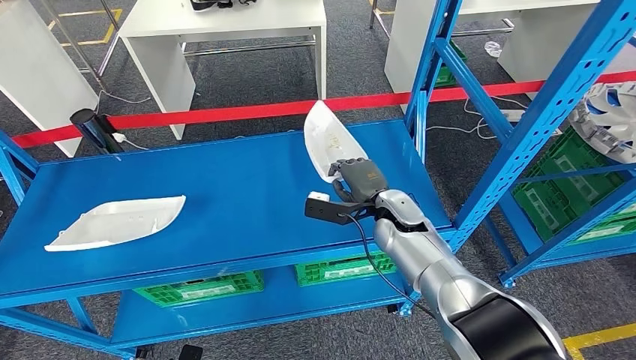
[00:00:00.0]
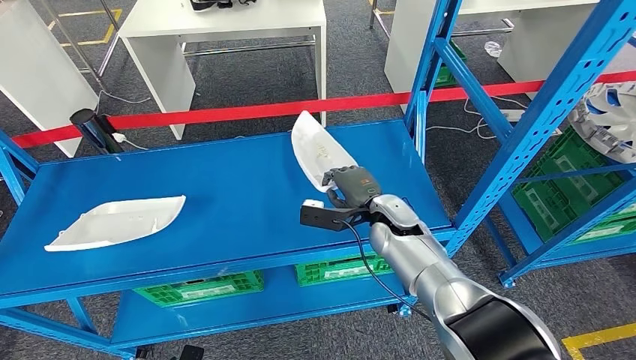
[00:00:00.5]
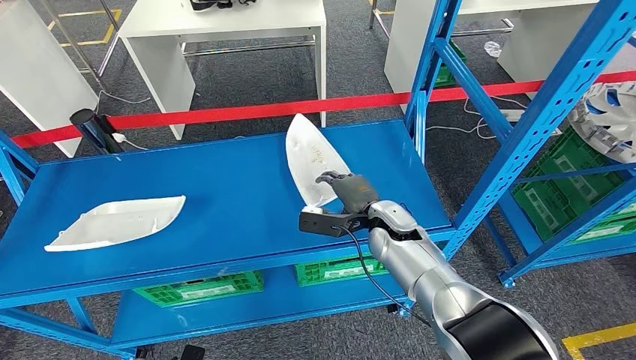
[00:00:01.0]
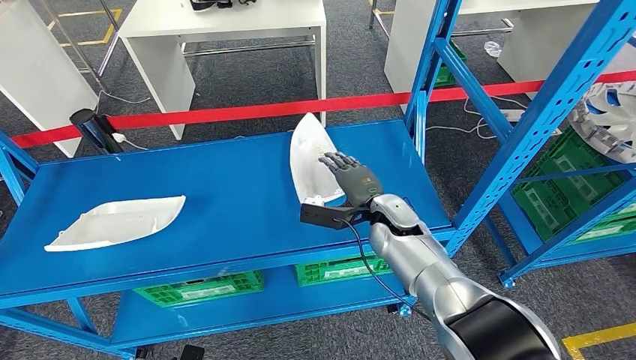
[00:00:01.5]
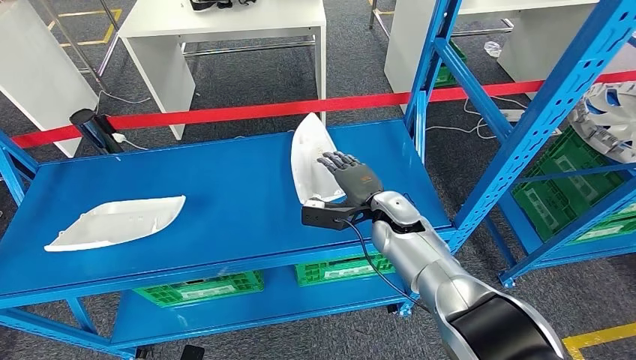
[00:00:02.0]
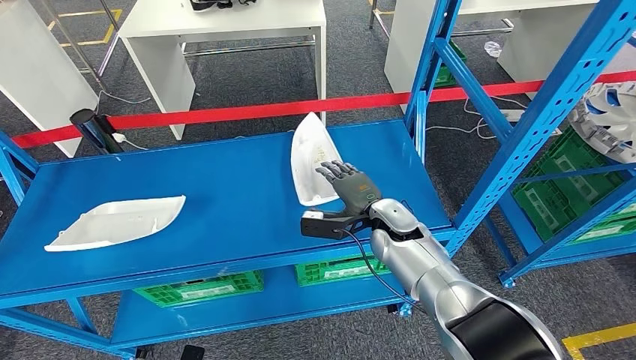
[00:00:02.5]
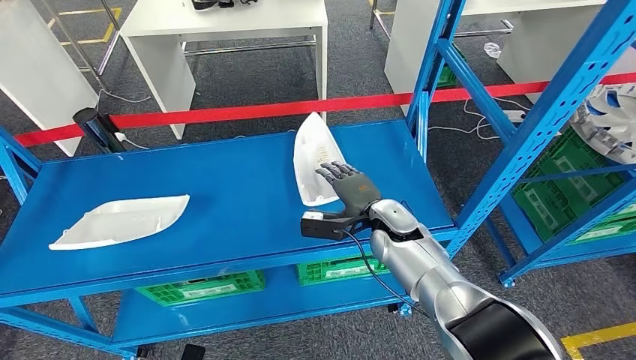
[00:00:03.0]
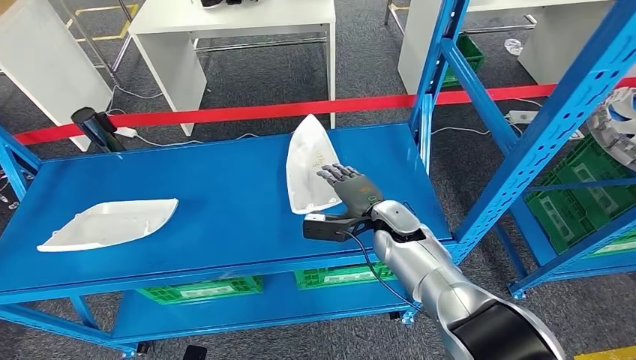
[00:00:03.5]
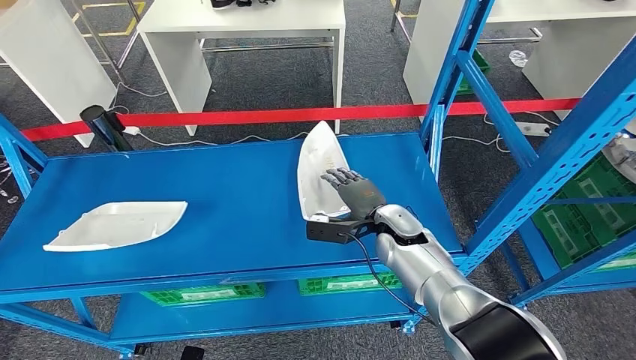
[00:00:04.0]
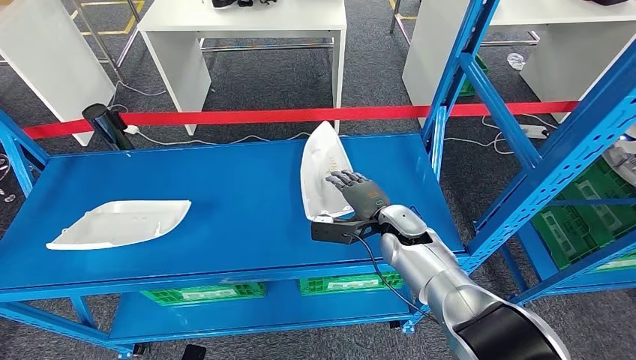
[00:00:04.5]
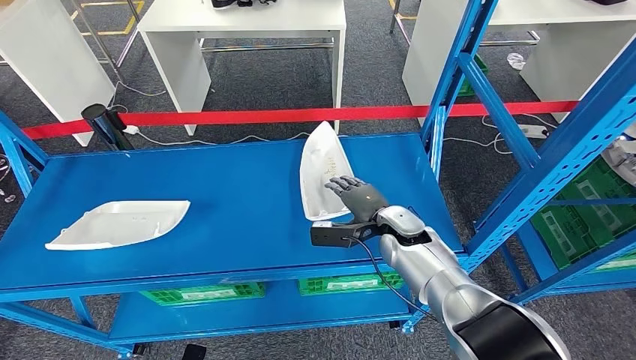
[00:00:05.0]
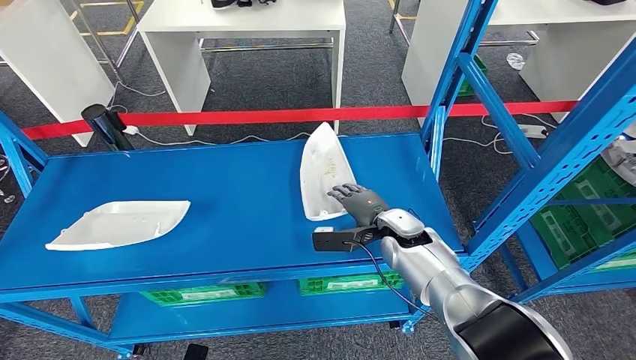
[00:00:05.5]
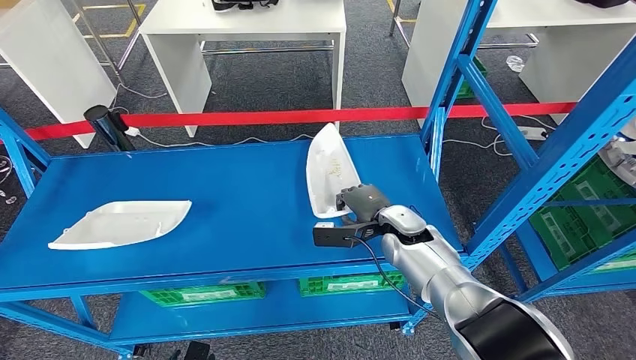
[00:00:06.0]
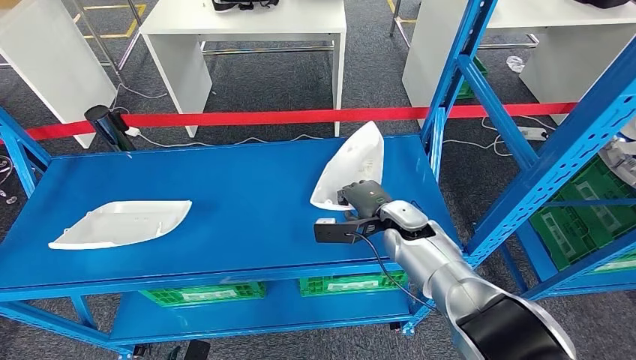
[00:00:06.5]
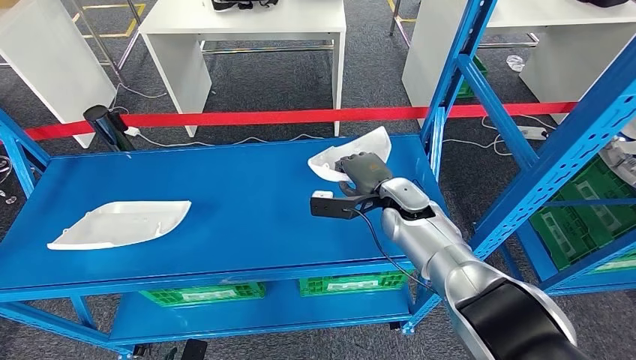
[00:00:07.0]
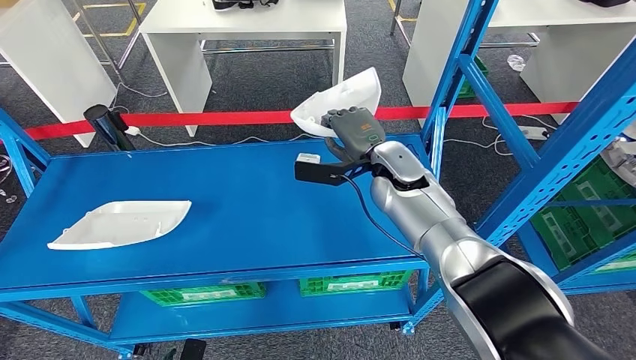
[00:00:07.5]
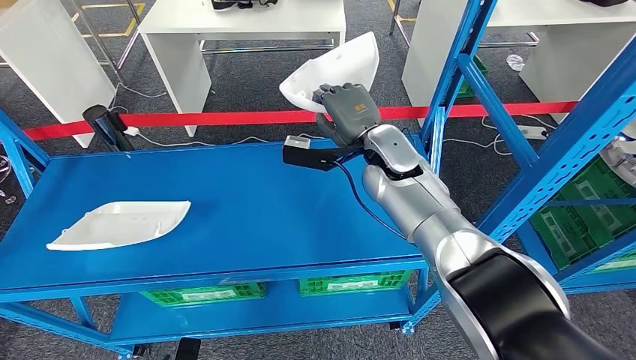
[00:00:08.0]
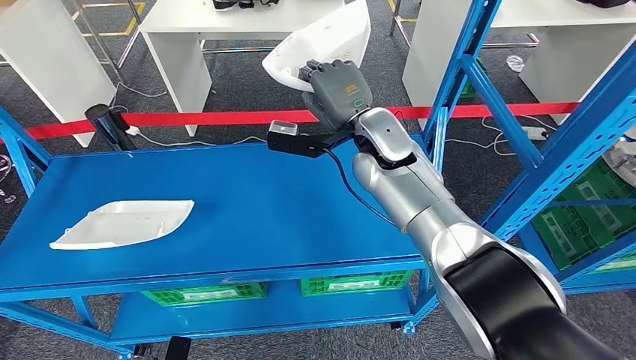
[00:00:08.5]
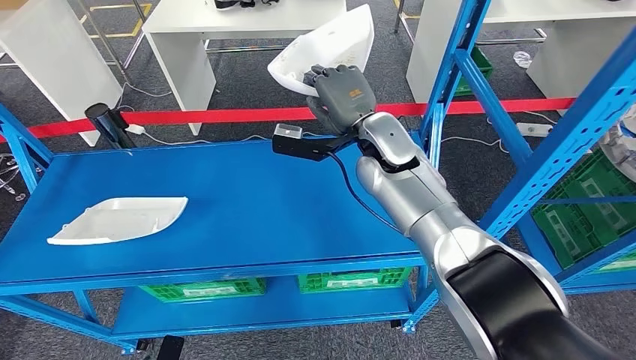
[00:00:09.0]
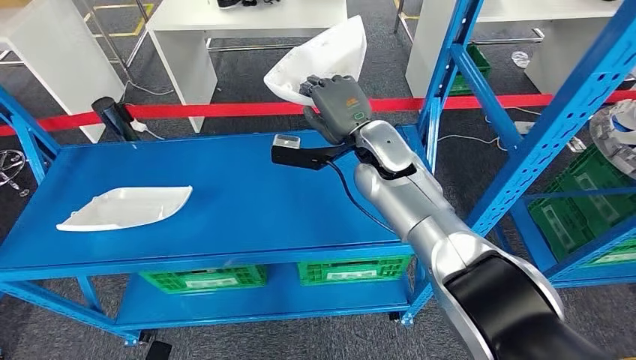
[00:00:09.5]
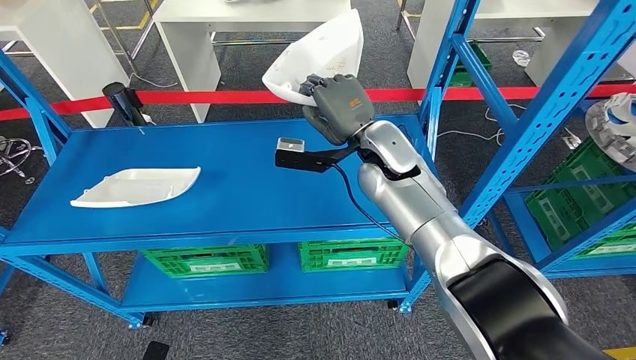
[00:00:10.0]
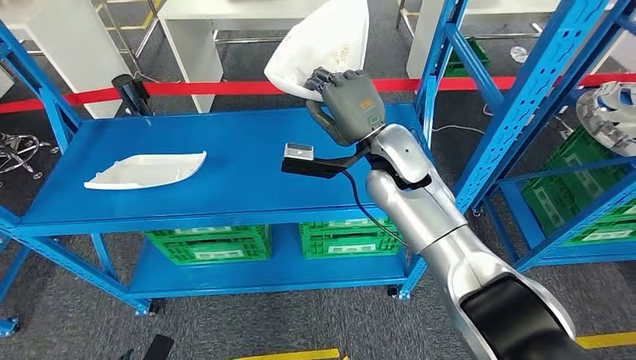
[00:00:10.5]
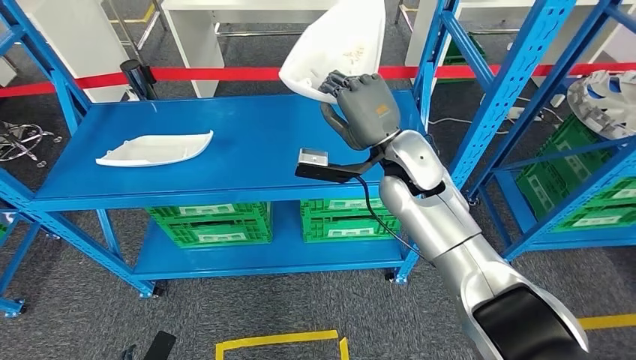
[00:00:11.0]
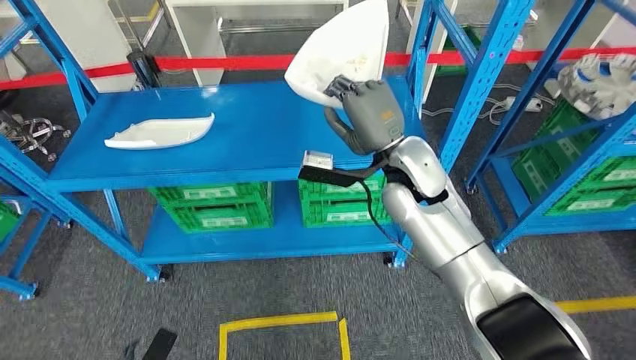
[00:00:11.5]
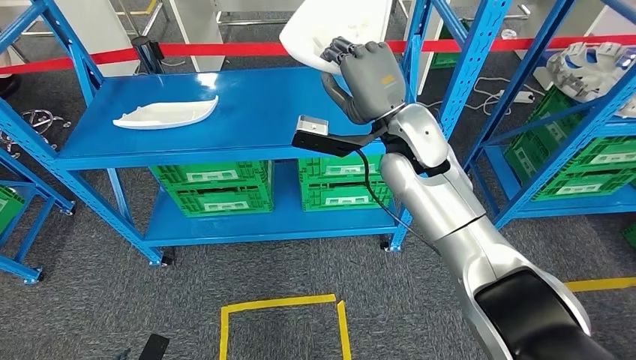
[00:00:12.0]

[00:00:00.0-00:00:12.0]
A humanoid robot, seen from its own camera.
Step, 00:00:00.0 to 00:00:09.0: Pick up the small component from the shelf.
00:00:00.0 to 00:00:02.0: The hands move only a little.
00:00:04.0 to 00:00:06.0: The hands make only small movements.
00:00:06.0 to 00:00:08.0: The right hand moves upward, forward and to the left, roughly 15 cm.

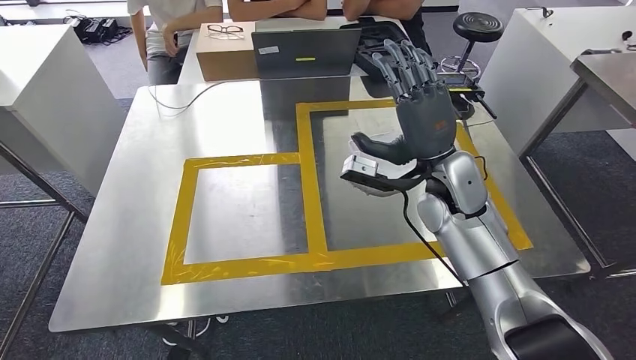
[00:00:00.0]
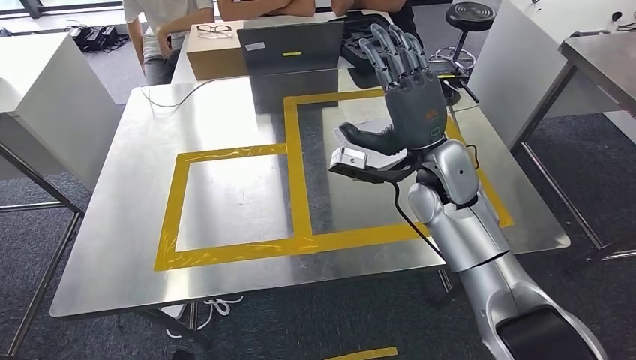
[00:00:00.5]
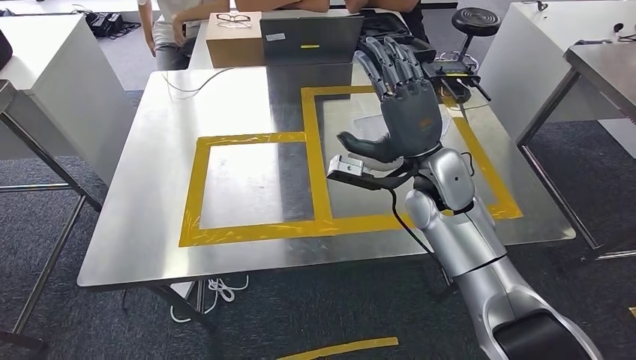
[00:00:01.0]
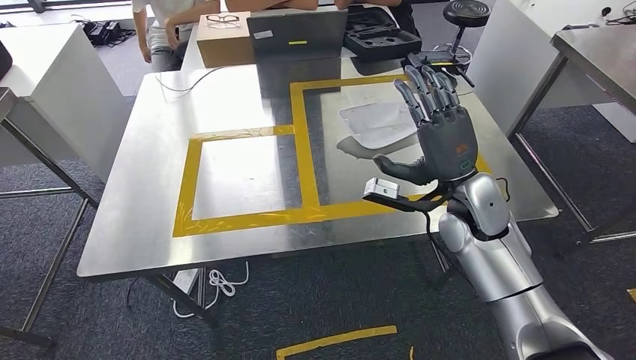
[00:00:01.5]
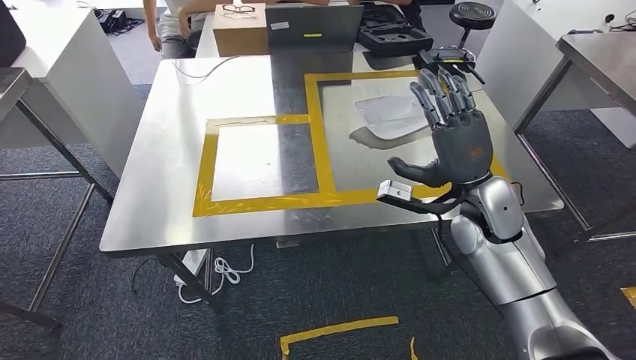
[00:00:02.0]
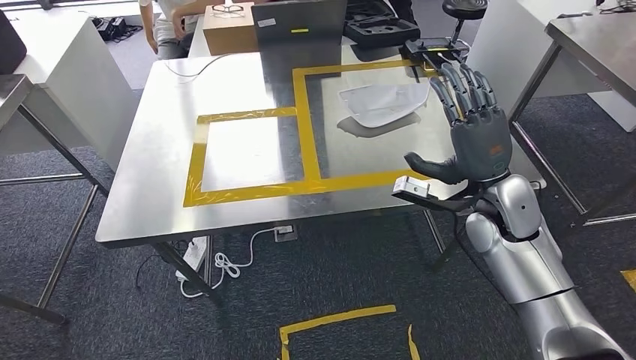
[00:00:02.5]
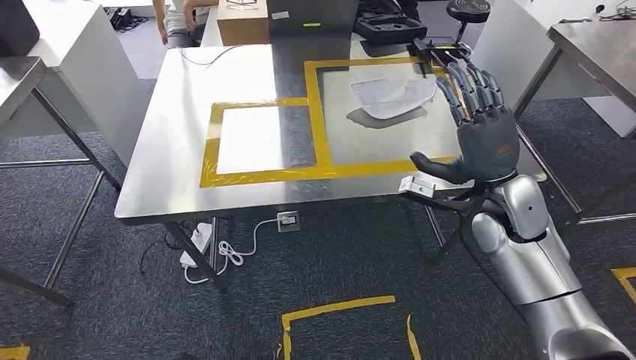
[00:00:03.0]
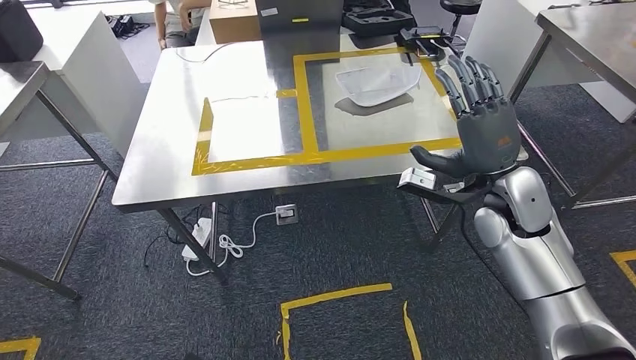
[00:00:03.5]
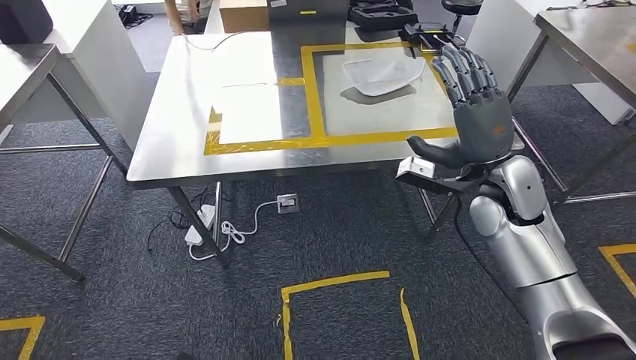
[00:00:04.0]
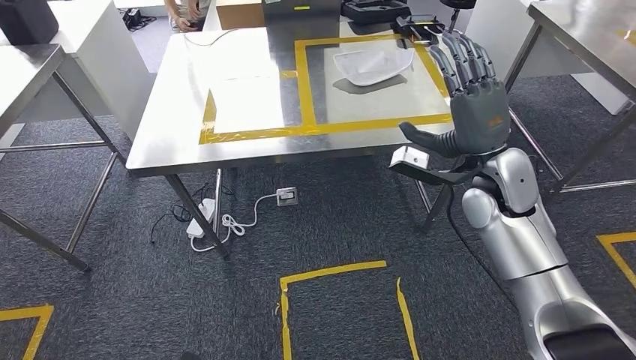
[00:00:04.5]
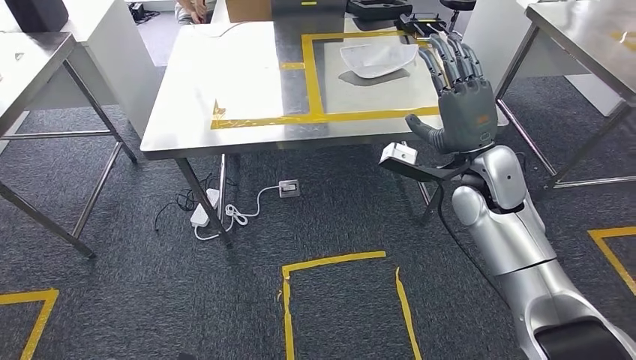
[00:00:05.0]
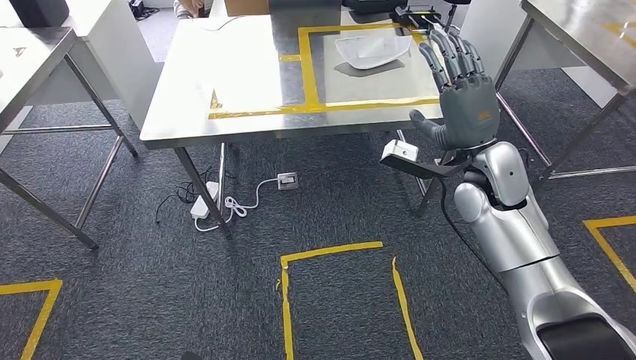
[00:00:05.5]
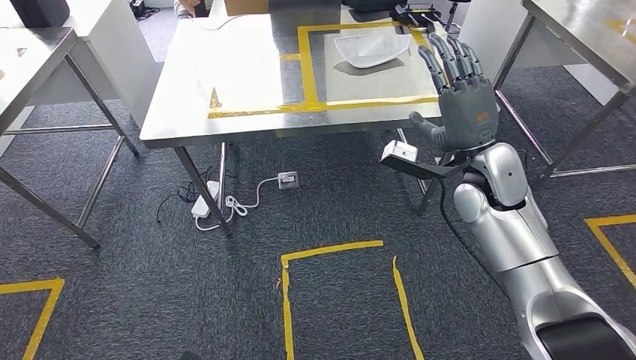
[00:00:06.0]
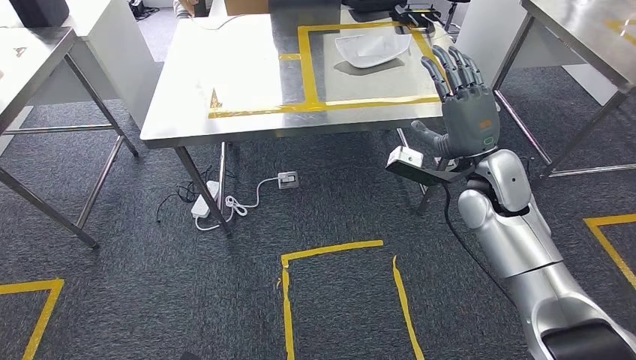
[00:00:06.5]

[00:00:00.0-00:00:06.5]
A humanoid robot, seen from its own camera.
Step, 00:00:01.5 to 00:00:06.5: Return to the initial position at the workbench.
